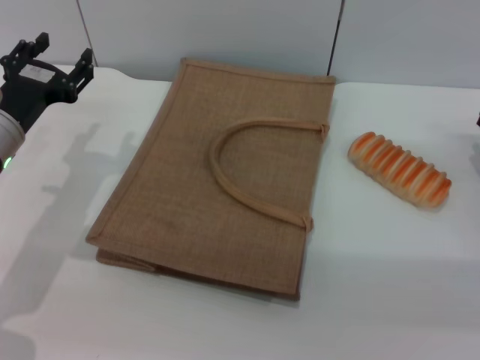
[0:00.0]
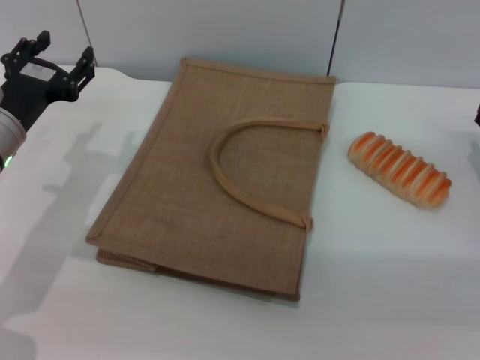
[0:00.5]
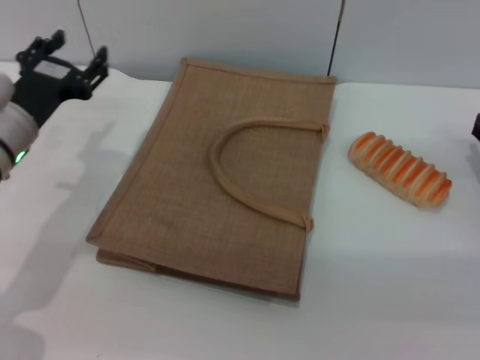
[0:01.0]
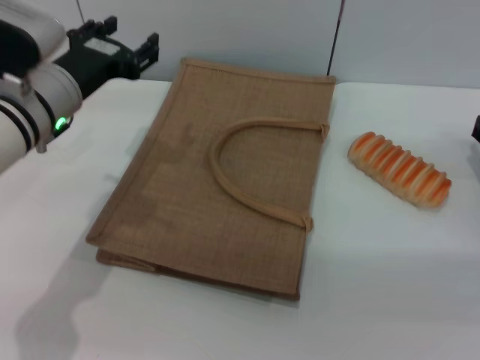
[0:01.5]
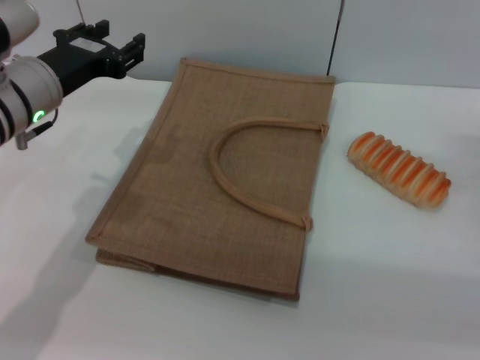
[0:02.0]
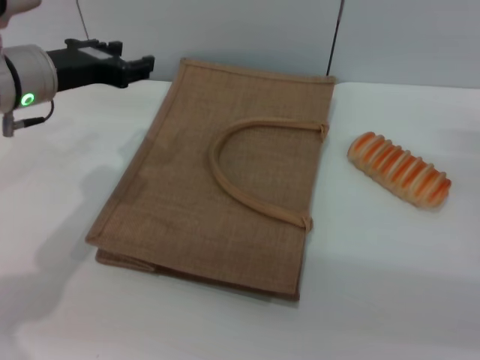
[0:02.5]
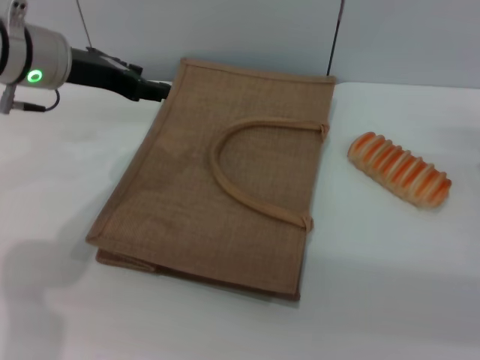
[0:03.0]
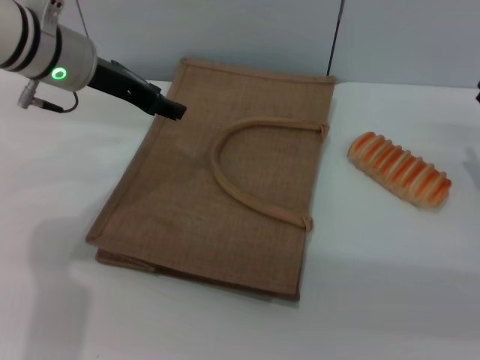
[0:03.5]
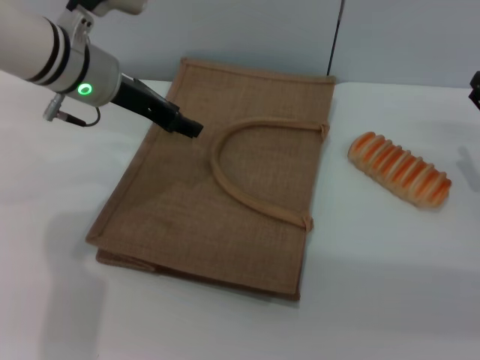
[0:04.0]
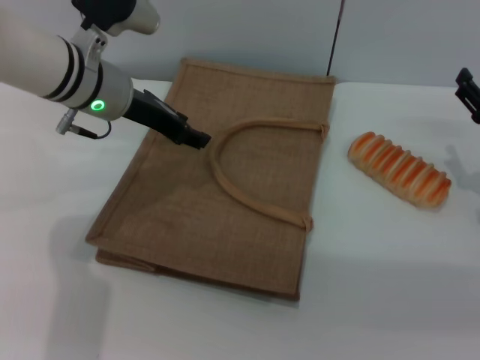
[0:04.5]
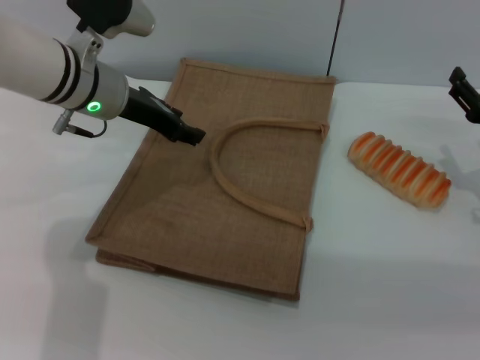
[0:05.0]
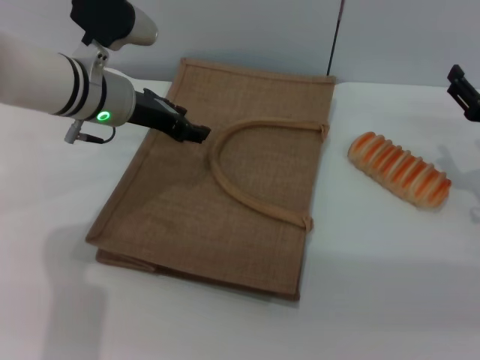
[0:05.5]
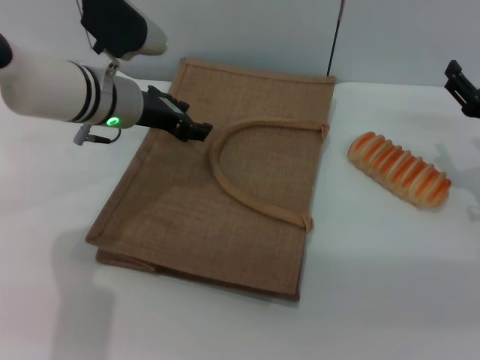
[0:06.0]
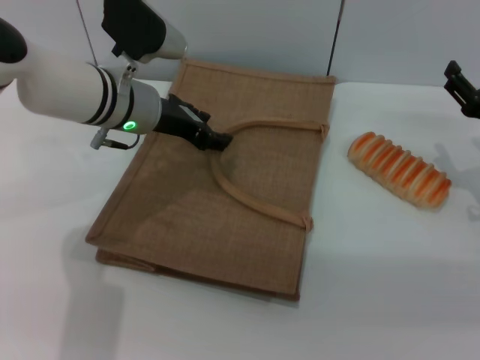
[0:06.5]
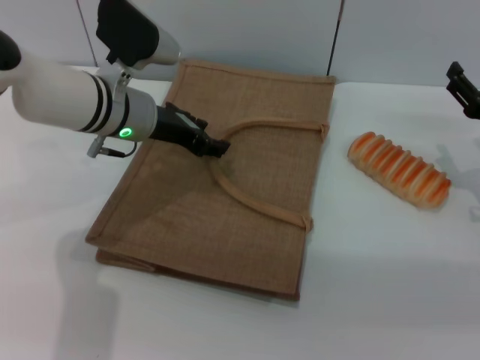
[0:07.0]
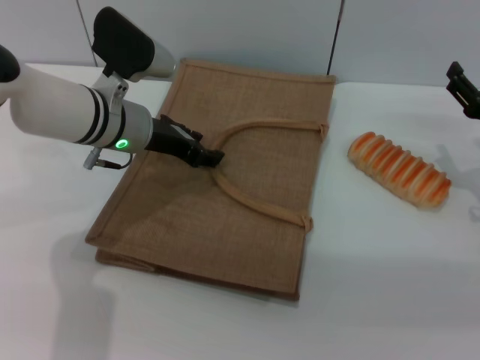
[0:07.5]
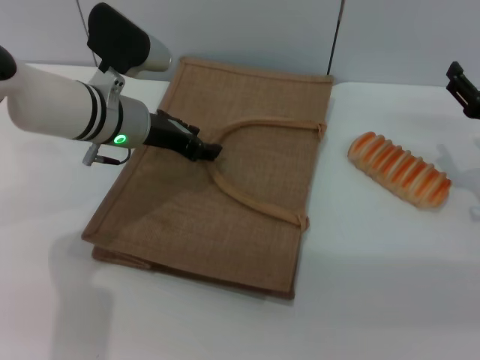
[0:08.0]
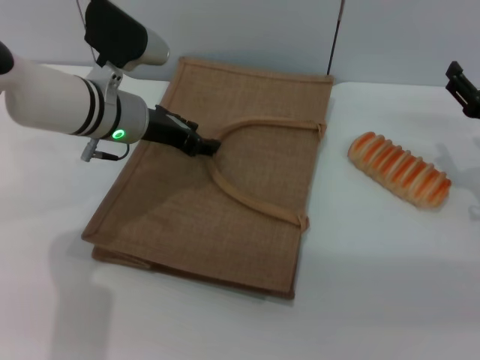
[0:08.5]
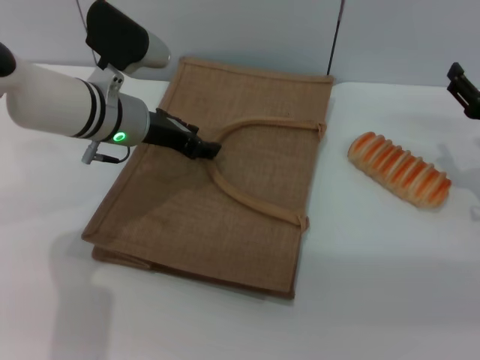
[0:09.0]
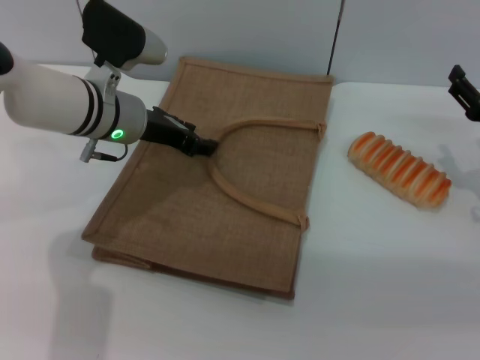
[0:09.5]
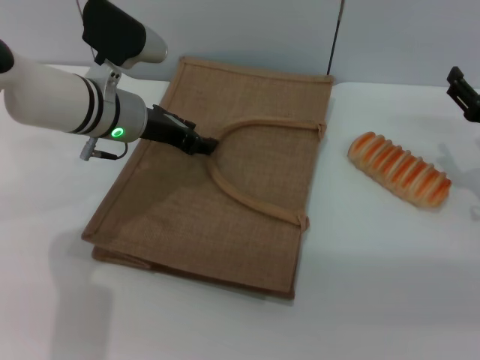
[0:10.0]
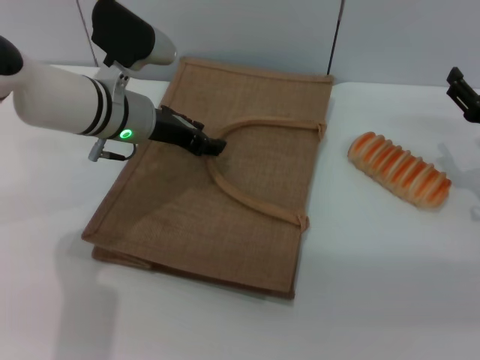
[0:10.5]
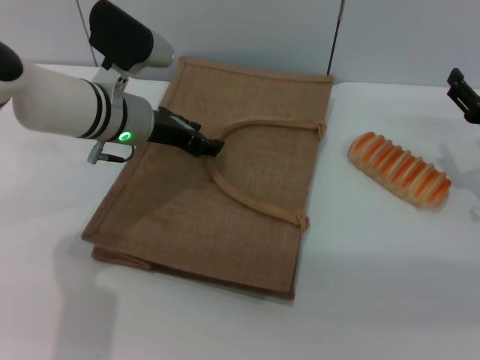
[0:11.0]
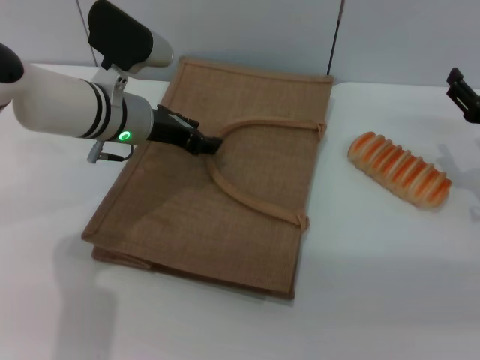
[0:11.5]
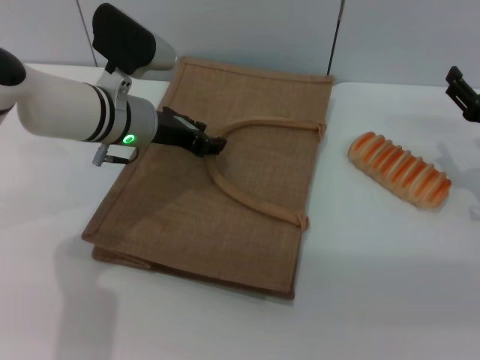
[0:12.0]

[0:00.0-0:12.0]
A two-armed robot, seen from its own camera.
Task of the whole recording: pick up the bread from the table and place it in the brown handbag.
0:00.0 to 0:02.0: The left gripper travels upward by some 5 cm.
0:02.0 to 0:04.0: The left gripper travels forward by some 5 cm.
0:04.0 to 0:06.0: The left gripper shifts by approximately 5 cm.
0:06.0 to 0:08.0: The grippers move only a little.
0:08.0 to 0:12.0: Both grippers stay put.

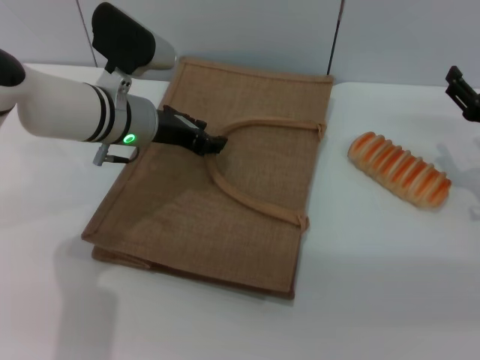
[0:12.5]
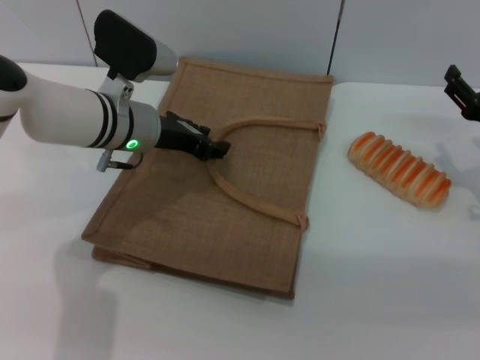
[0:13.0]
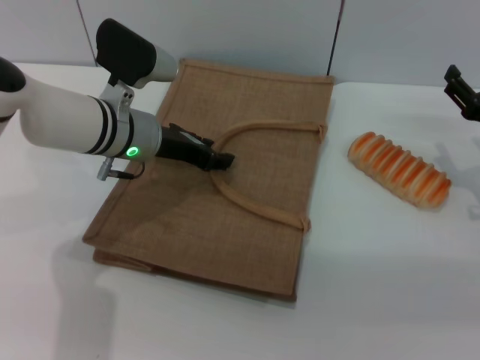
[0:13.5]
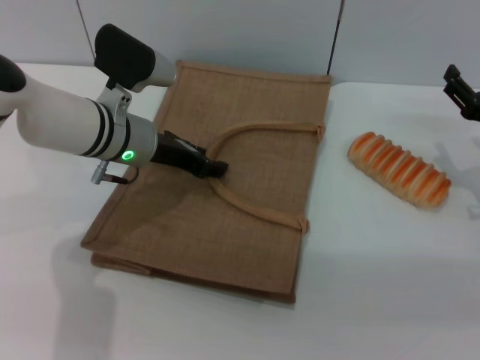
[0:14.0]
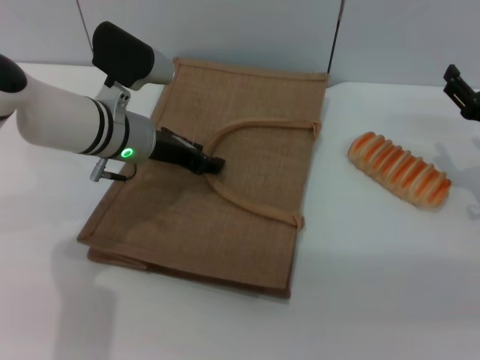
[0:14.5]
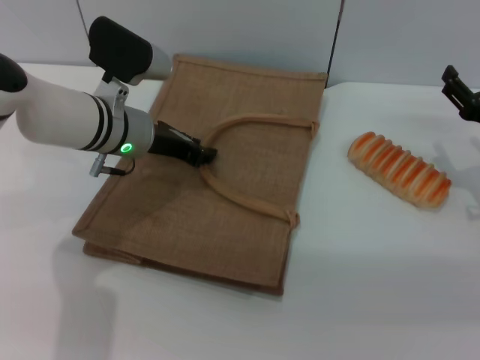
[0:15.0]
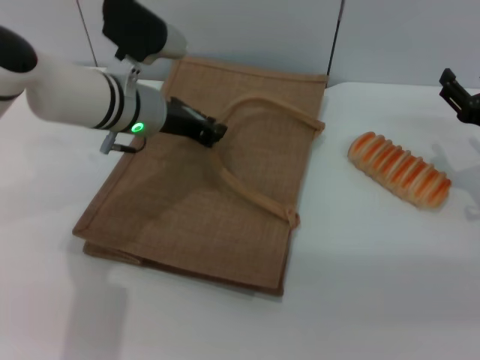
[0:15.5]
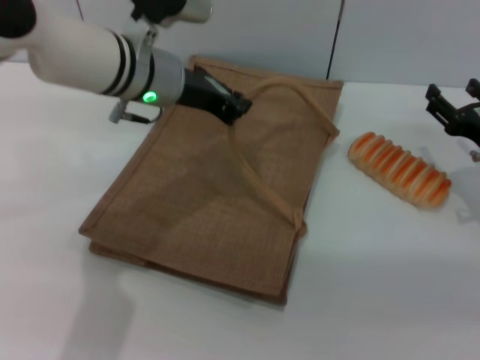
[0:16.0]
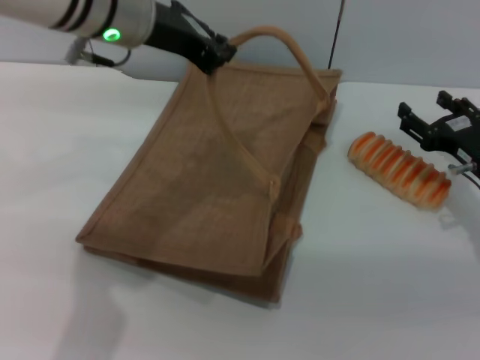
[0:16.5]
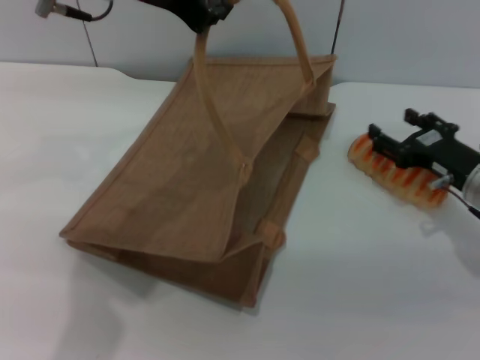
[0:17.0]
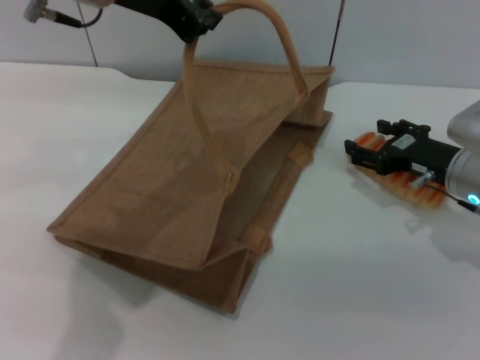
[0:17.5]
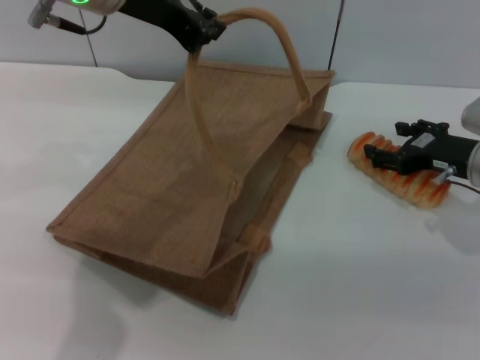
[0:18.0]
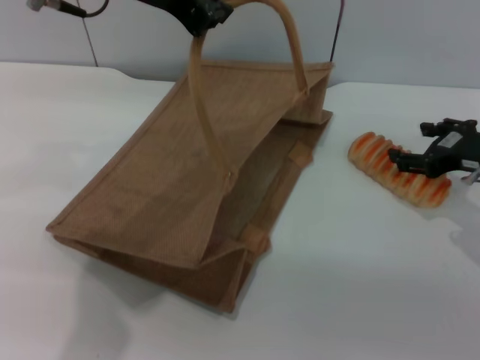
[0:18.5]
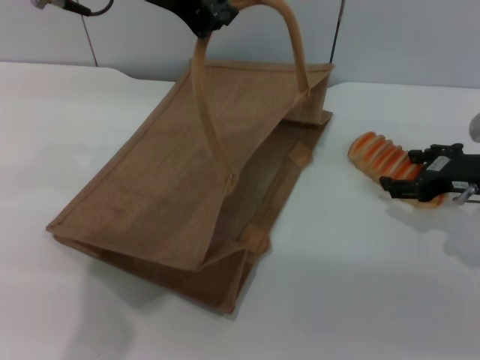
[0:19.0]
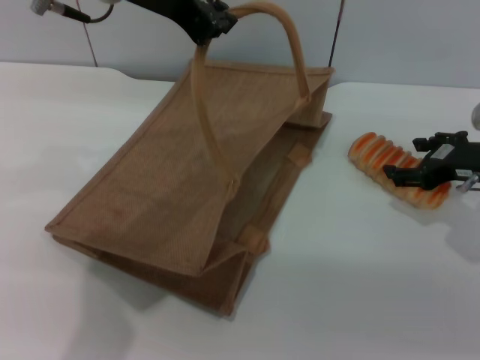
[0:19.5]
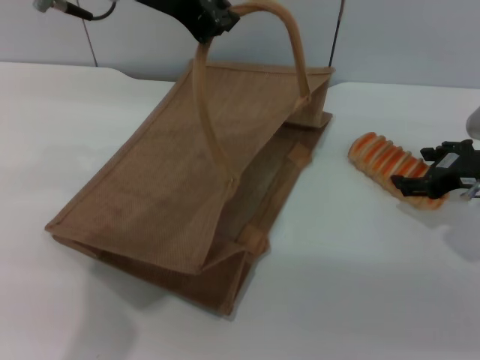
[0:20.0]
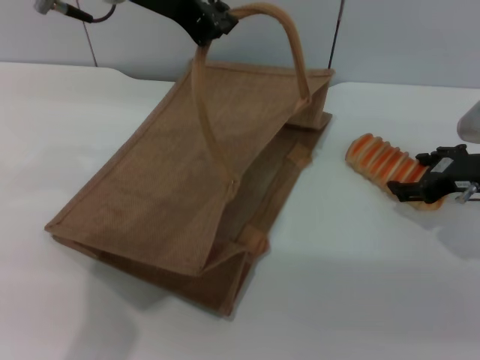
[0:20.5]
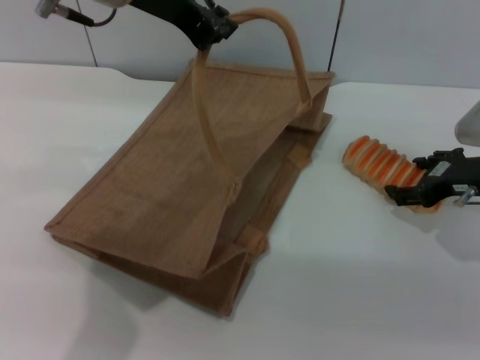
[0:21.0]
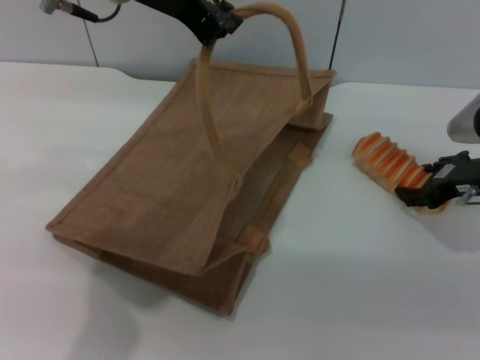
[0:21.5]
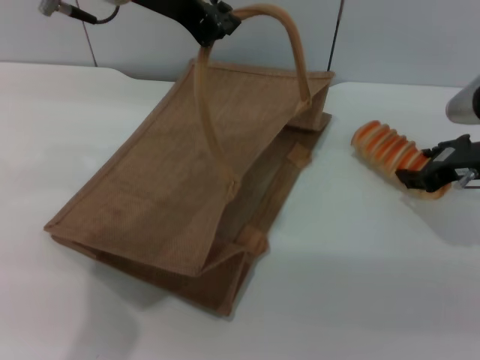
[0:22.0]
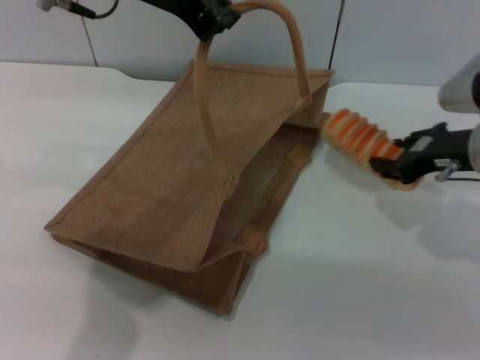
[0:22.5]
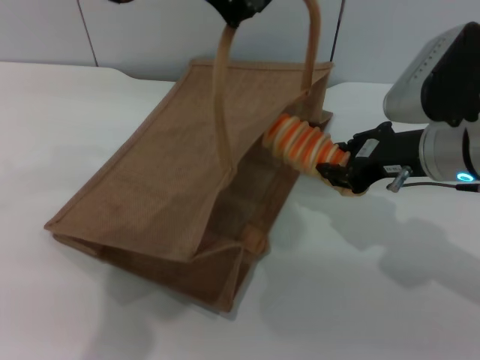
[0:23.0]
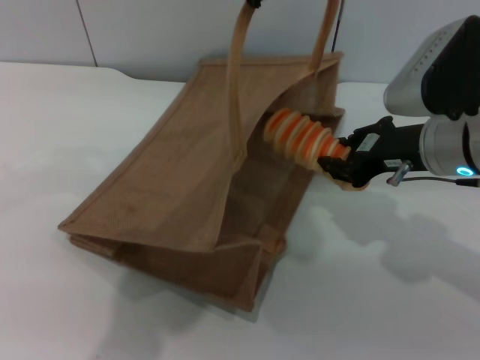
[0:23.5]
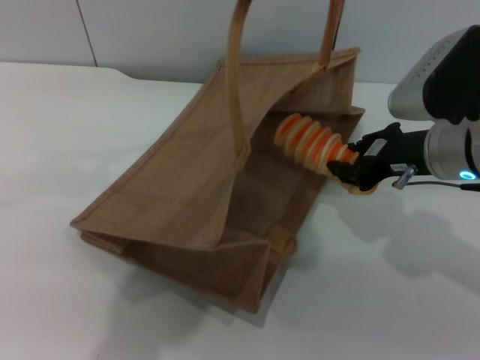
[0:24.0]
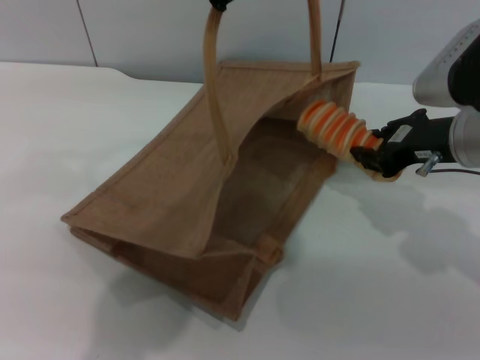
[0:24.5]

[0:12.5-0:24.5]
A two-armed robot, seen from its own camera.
Task of the whole recording: pick up the bread from the table and place it in the brown handbag.
Step, 0:12.5 to 0:15.5: Lift the woven bag with the left gripper to open it.
Step, 0:16.0 to 0:22.0: Pick up the bread with the right gripper.
0:12.5 to 0:14.5: The grippers make only small movements.
0:14.5 to 0:16.5: The left gripper shifts some 15 cm upward, and closes.
0:16.5 to 0:18.5: Both grippers travel together upward, approximately 5 cm.
0:18.5 to 0:20.5: There are only small adjustments of the grippers.
0:20.5 to 0:22.5: The right gripper changes place by approximately 5 cm, and closes up.

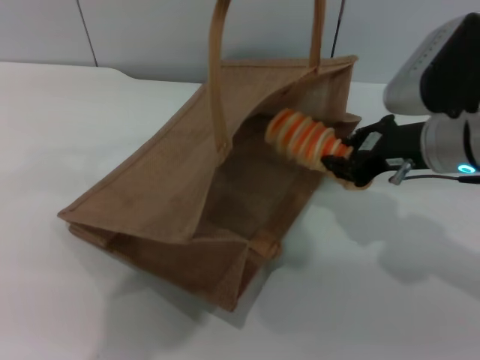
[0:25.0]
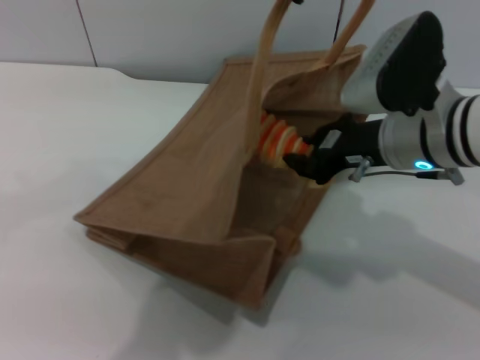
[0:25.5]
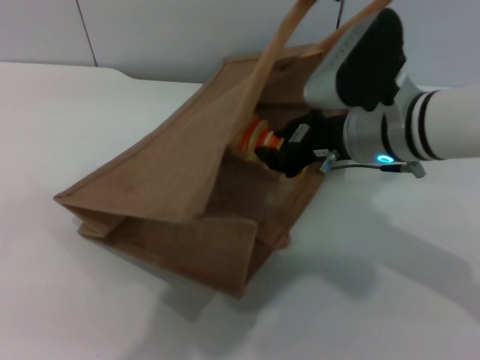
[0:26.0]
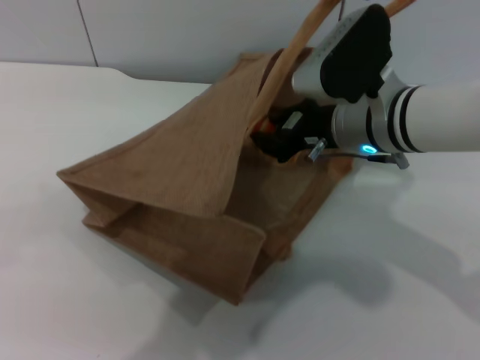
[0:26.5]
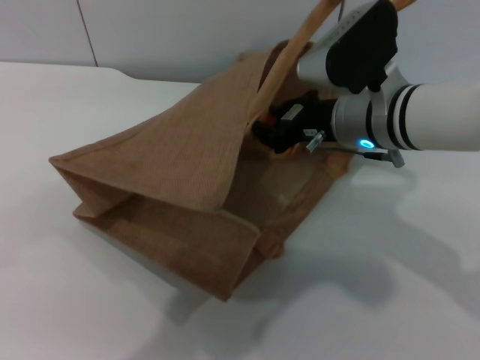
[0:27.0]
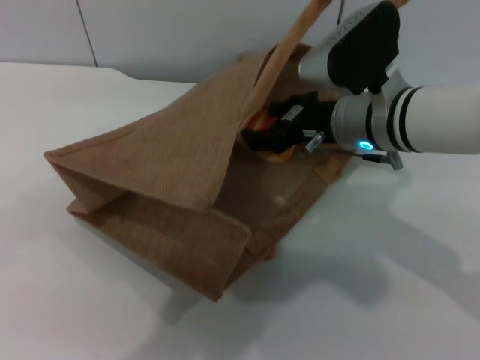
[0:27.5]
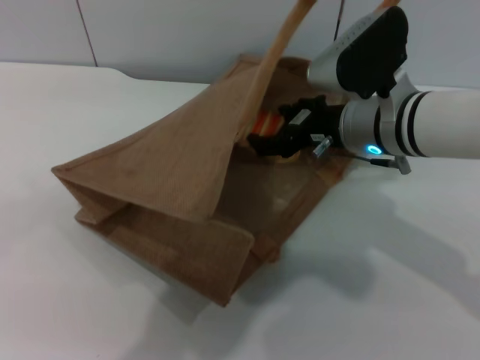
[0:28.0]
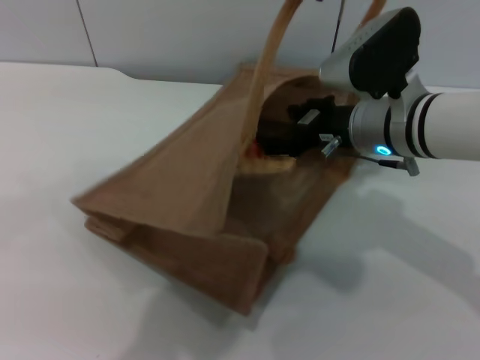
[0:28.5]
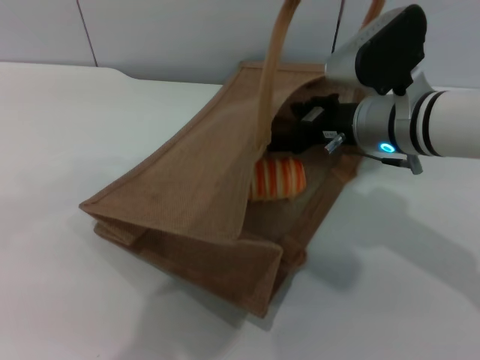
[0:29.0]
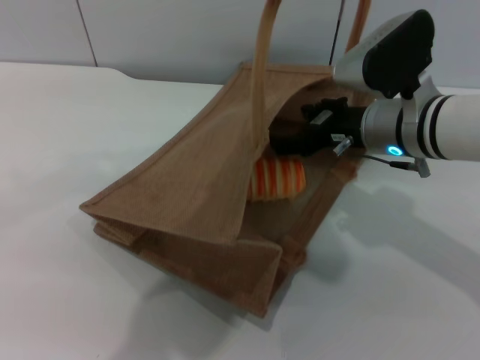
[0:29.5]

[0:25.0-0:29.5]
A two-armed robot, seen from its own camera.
Task of the whole recording: pick up the bread from the table and place it in the brown handbag.
0:25.0 to 0:27.0: The right gripper travels to the left by about 5 cm, while the left gripper moves to the right, about 10 cm.
0:27.0 to 0:29.5: The right gripper opens up.
